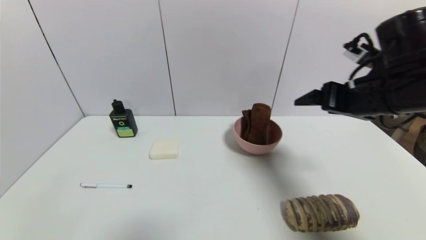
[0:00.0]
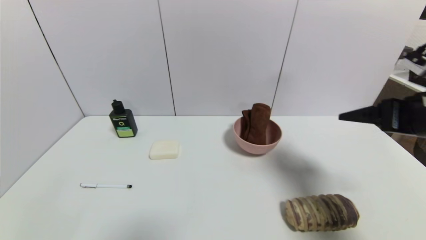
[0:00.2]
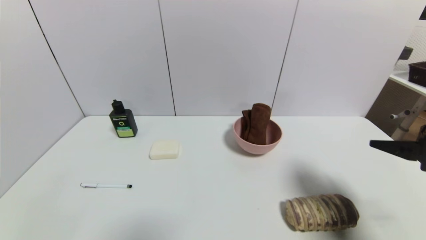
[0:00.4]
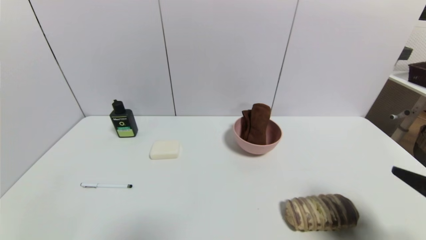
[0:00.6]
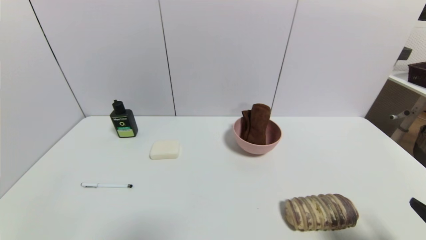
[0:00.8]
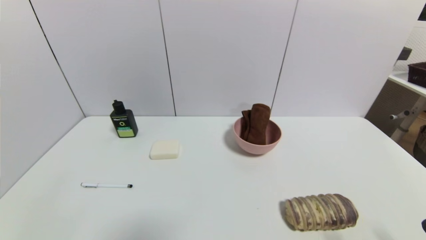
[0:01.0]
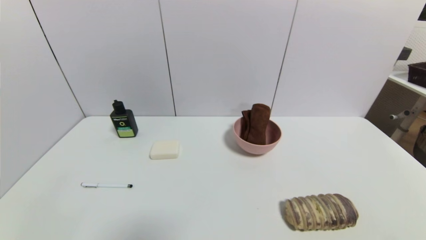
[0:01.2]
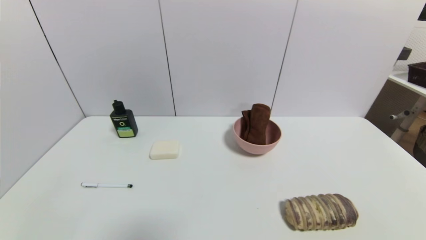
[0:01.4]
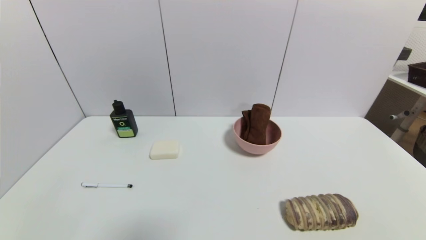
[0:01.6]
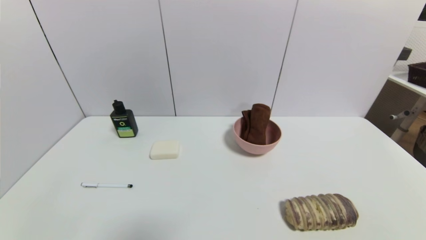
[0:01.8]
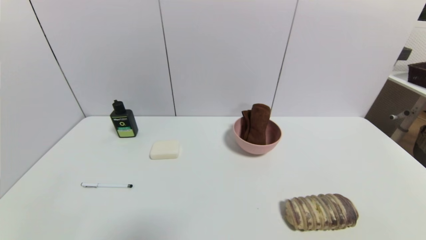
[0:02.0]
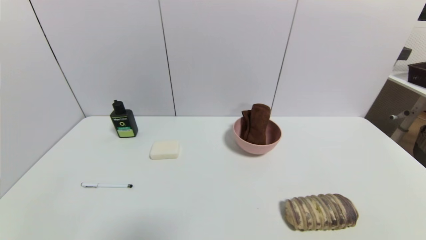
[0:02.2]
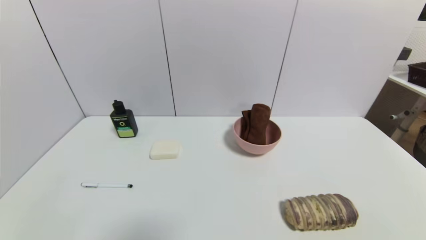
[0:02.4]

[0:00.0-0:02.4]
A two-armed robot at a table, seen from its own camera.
Task of the whole recording: use a gripper to pick the target object and place on the pink bowl.
0:00.0 to 0:01.2: The right gripper shifts roughly 30 cm backward and downward.
